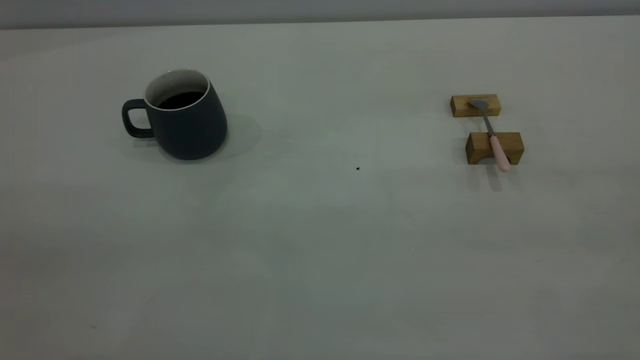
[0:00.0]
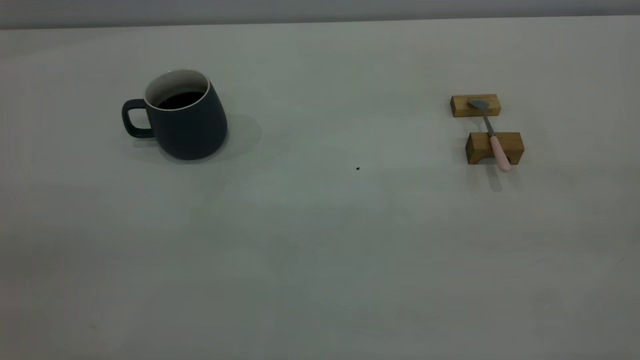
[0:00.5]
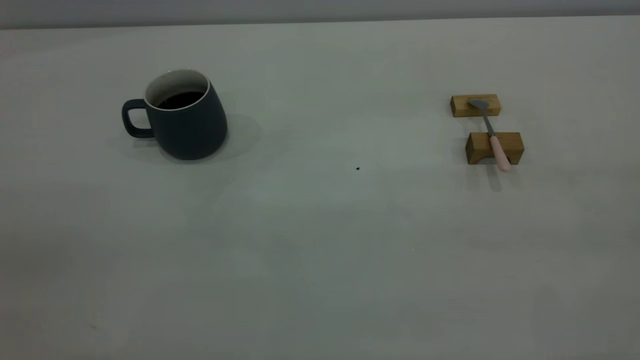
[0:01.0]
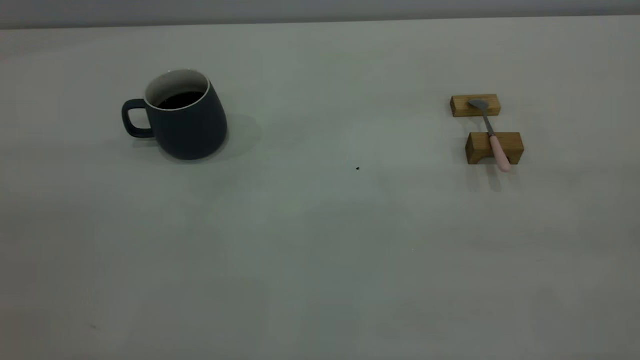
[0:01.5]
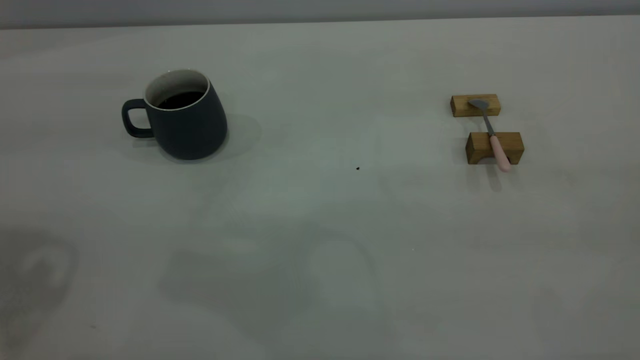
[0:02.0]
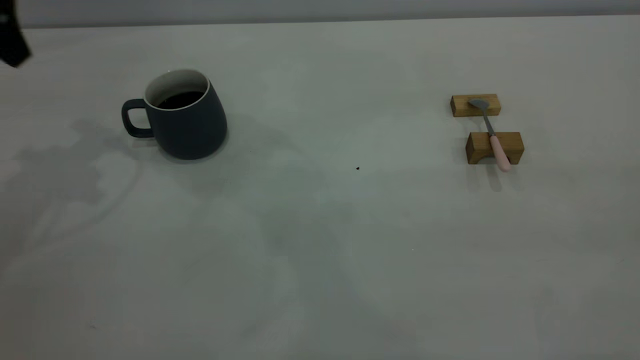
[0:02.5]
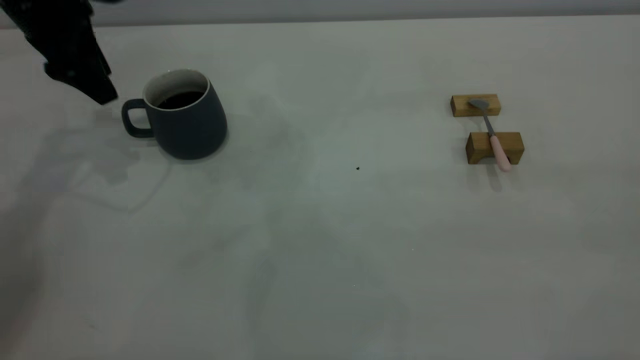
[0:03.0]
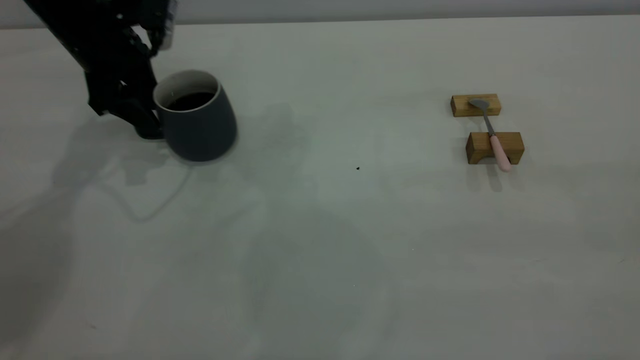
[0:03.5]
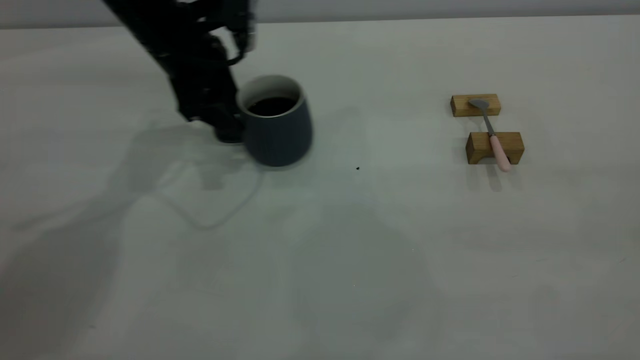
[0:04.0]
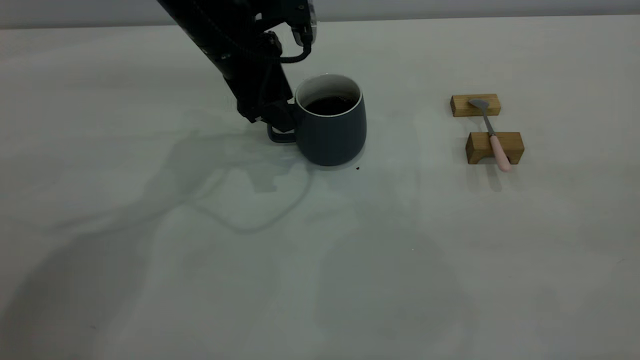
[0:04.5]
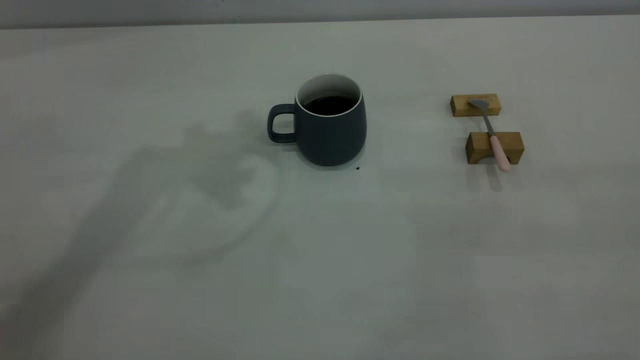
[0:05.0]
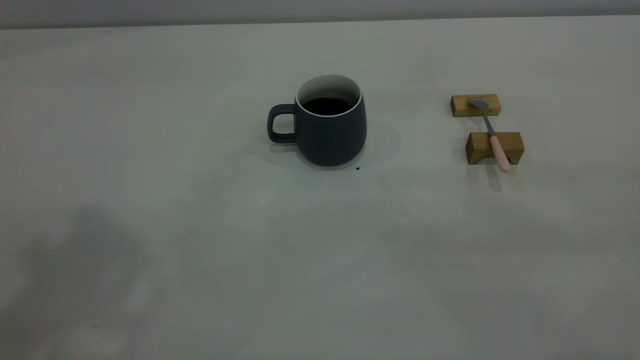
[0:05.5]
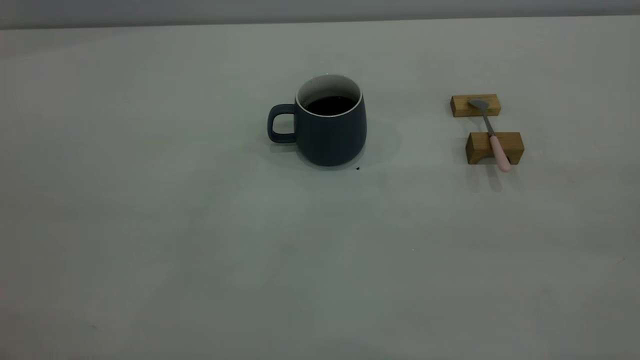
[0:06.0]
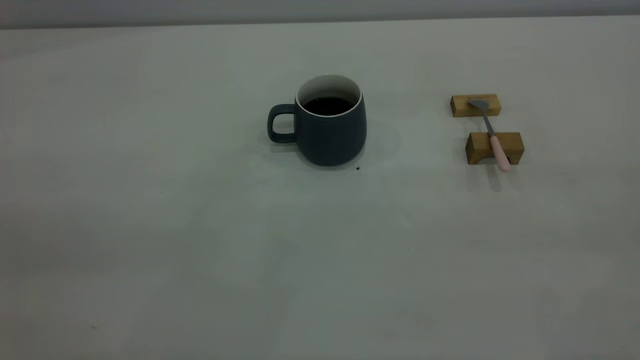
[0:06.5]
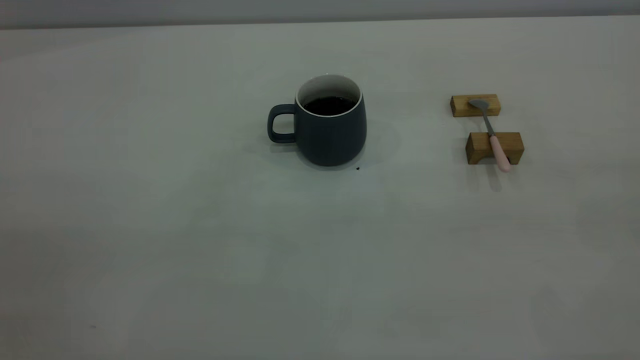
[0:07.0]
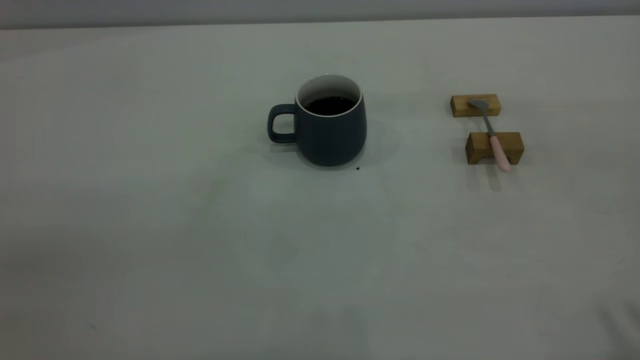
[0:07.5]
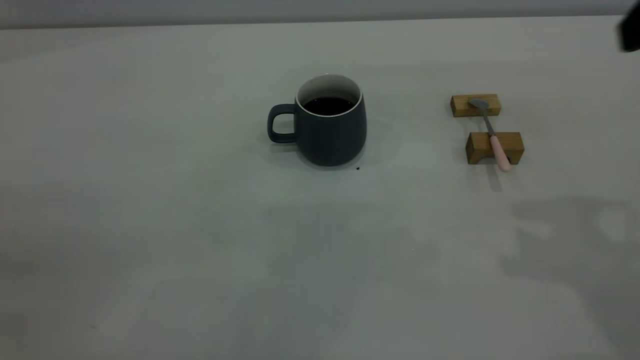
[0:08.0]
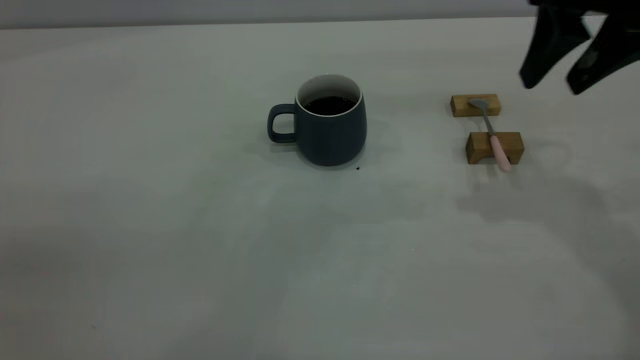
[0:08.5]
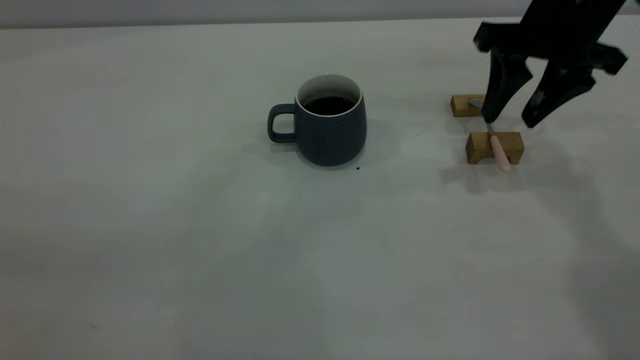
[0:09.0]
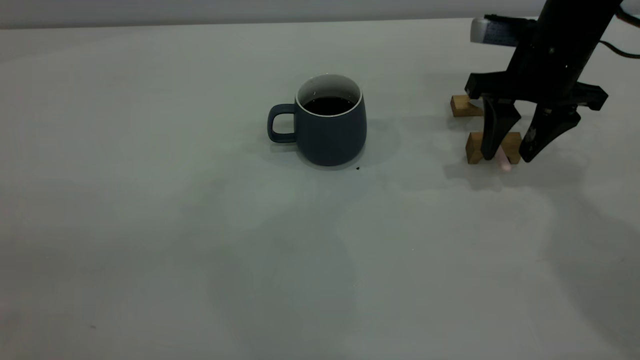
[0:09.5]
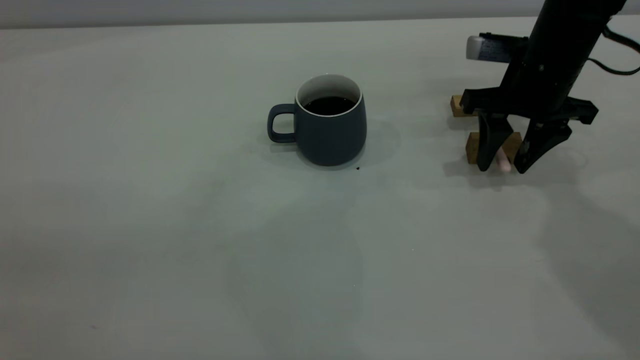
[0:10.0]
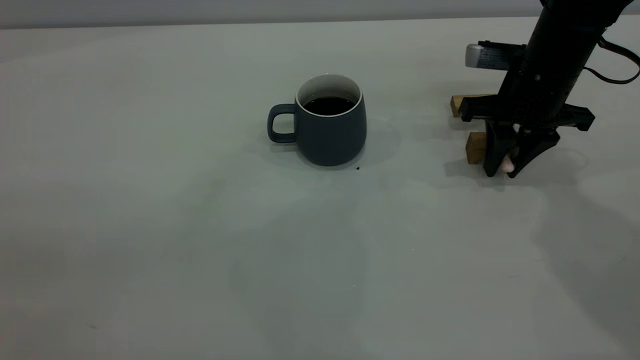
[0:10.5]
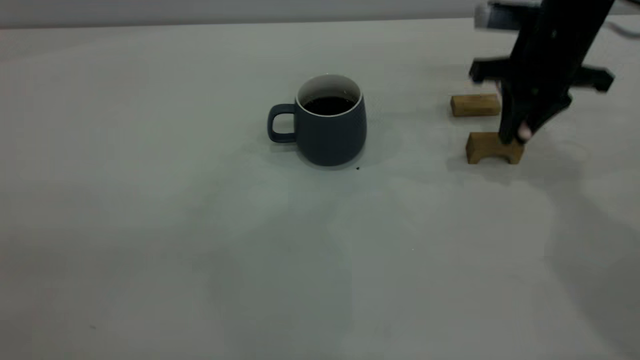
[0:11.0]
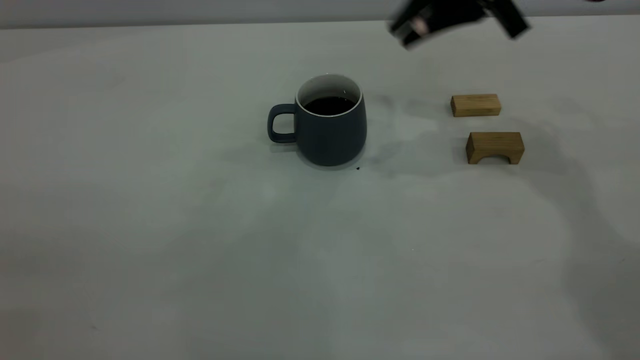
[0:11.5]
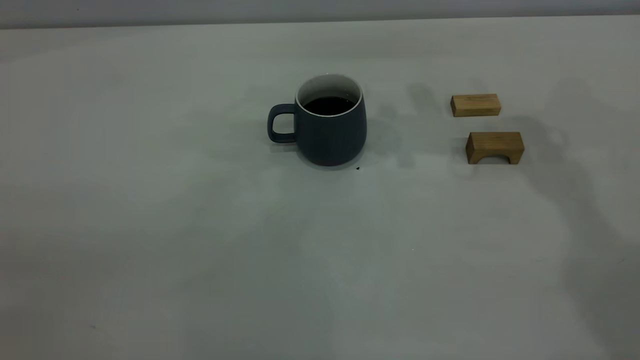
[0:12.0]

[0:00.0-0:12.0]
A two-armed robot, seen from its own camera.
Step, 0:00.0 to 0:04.5: Move the cup with coffee to the center of view.
Step, 0:05.0 to 0:11.0: Pick up the spoon.
0:02.0 to 0:04.0: The left gripper shifts some 35 cm forward, downward and to the right.
0:04.0 to 0:06.0: The left gripper heads backward and upward, covering roughly 40 cm.
0:08.0 to 0:10.0: The right gripper moves downward and forward, roughly 25 cm.
0:10.0 to 0:12.0: The right gripper shifts roughly 20 cm upward and to the left, and closes up.

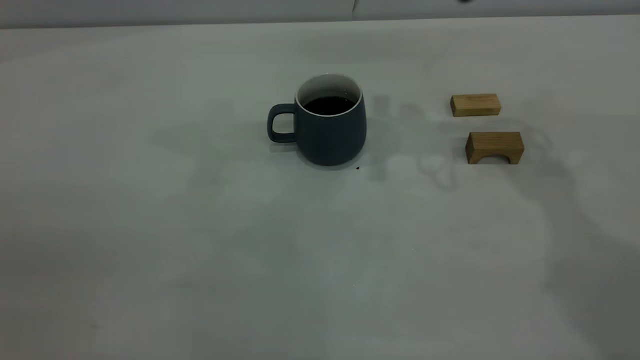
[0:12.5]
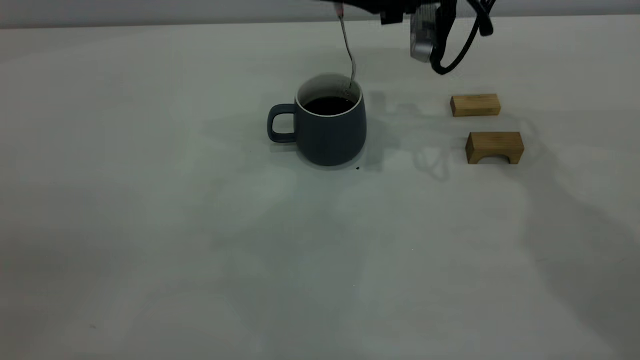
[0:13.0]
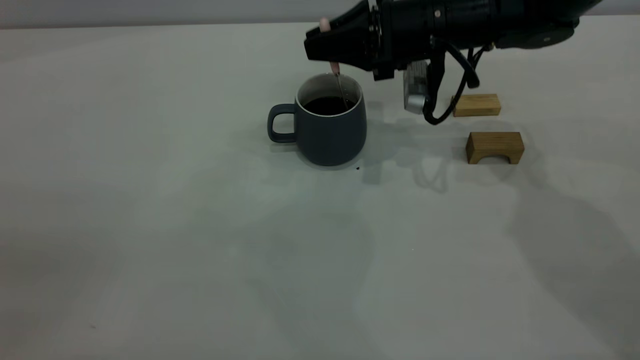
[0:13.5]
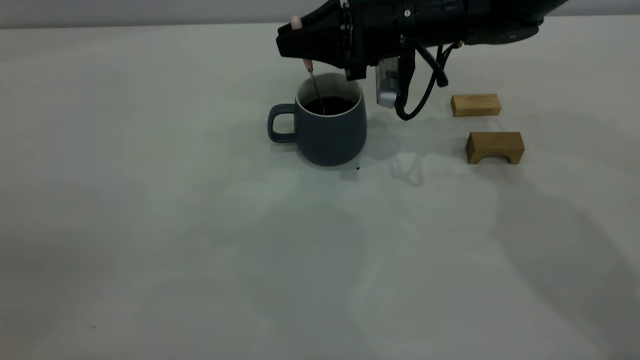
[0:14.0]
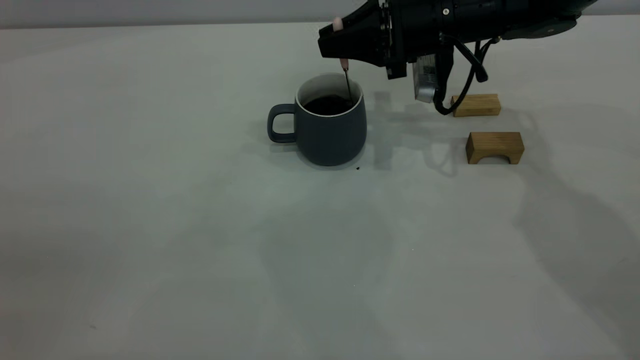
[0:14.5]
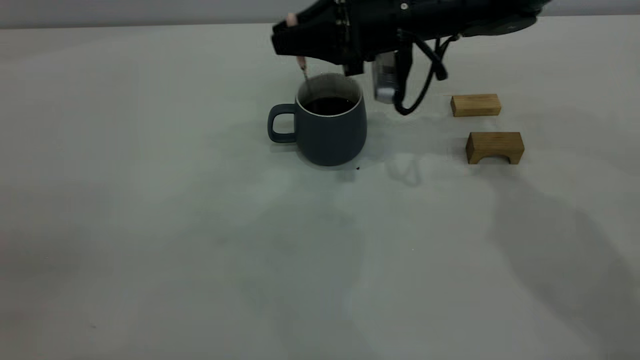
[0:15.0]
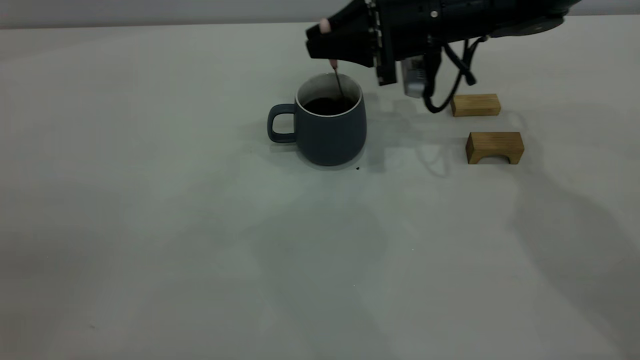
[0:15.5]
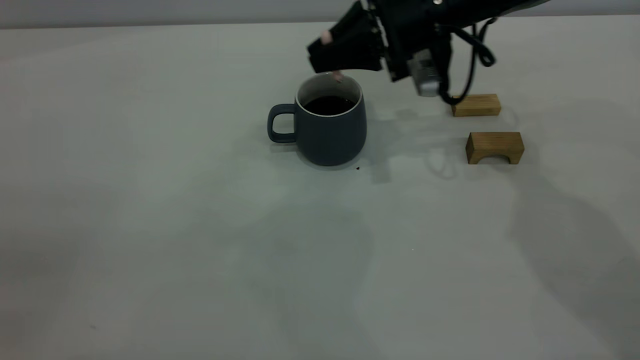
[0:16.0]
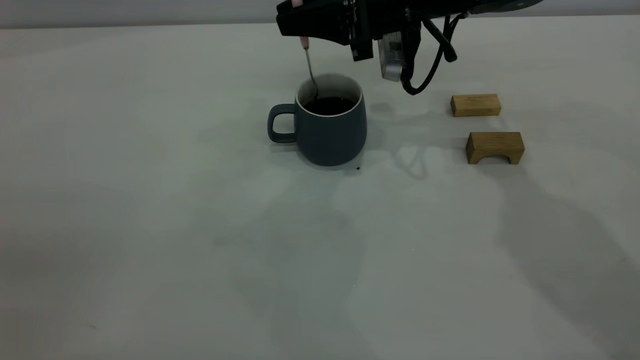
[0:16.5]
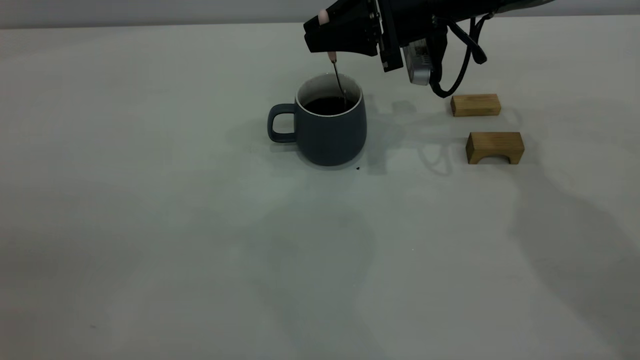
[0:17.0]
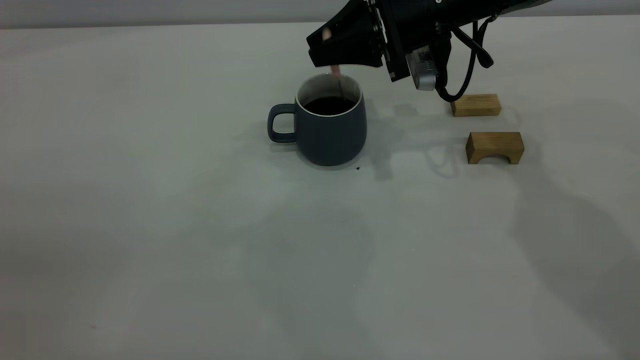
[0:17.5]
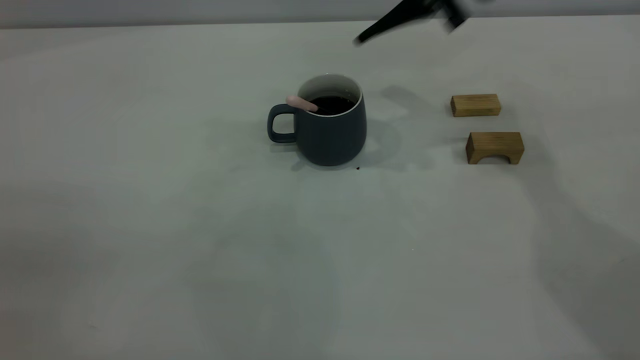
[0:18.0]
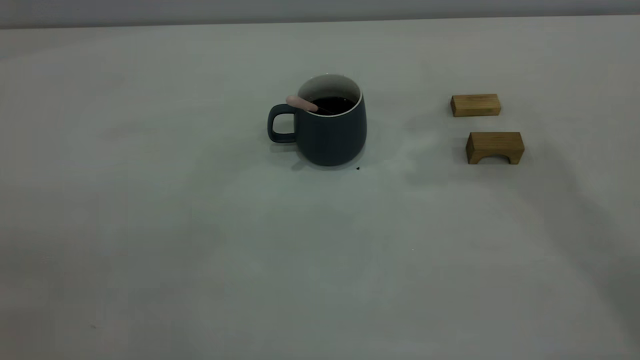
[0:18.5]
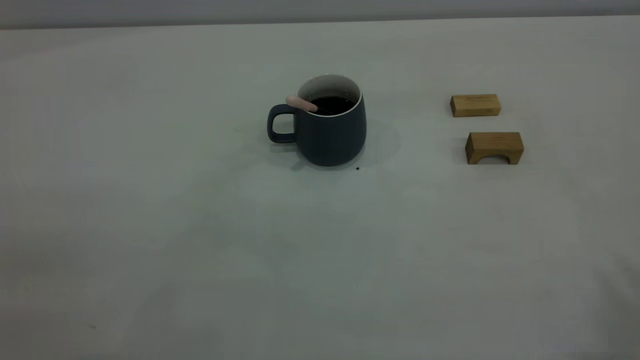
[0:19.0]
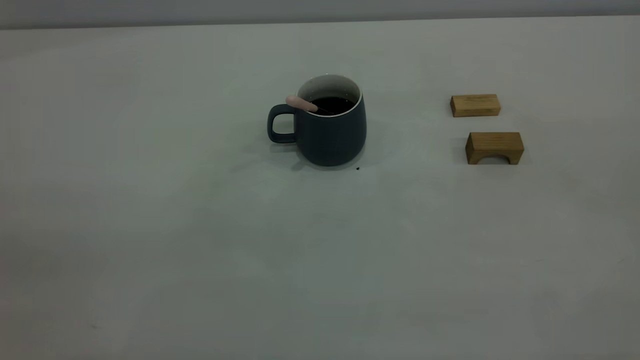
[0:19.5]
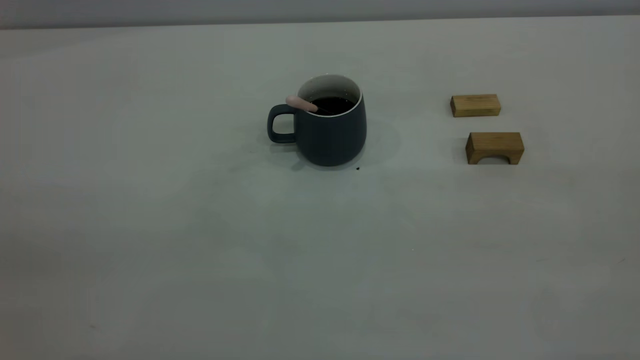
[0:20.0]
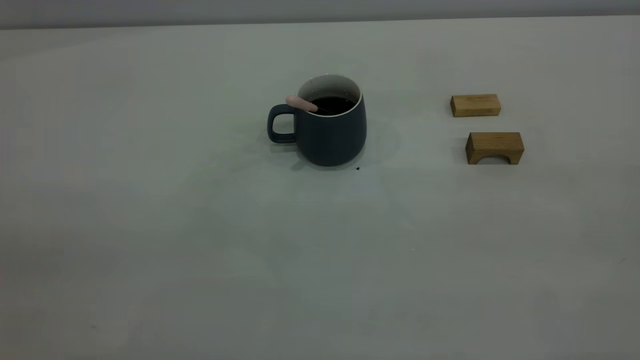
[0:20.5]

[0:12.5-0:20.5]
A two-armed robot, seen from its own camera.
Step, 0:12.5 to 0:17.5: Stir the coffee in the cup.
0:12.5 to 0:14.5: The right gripper heads downward, covering some 15 cm.
0:14.5 to 0:16.5: The grippers move only a little.
0:16.5 to 0:18.5: The right gripper moves upward, approximately 35 cm, and opens up.
